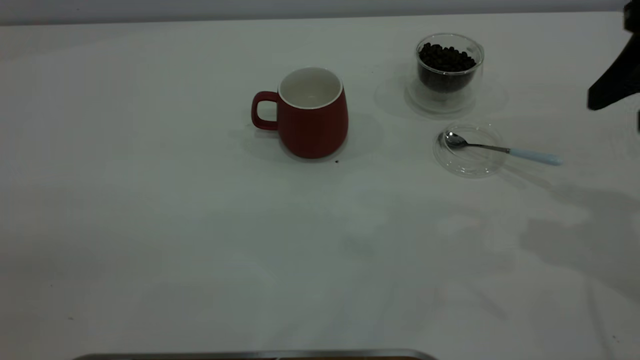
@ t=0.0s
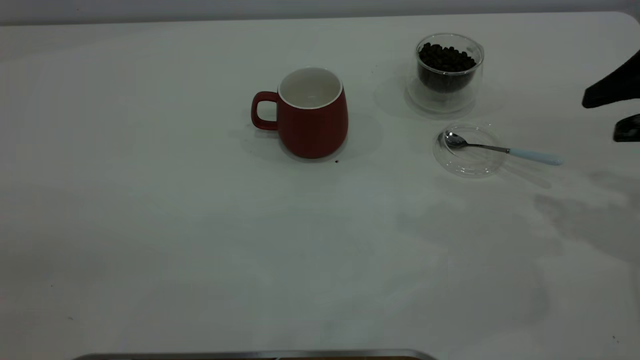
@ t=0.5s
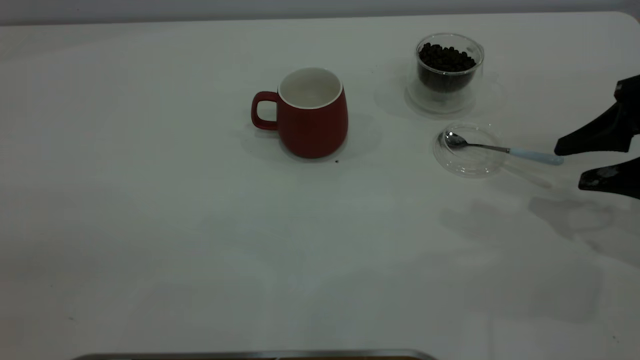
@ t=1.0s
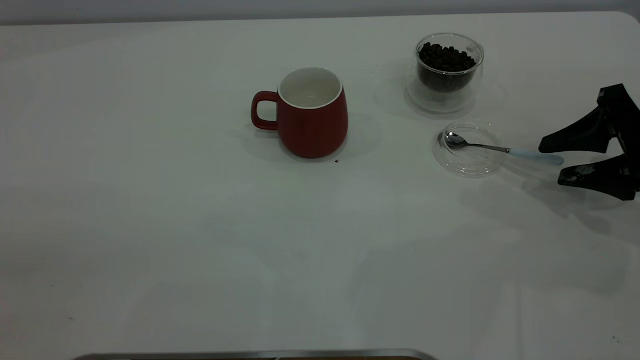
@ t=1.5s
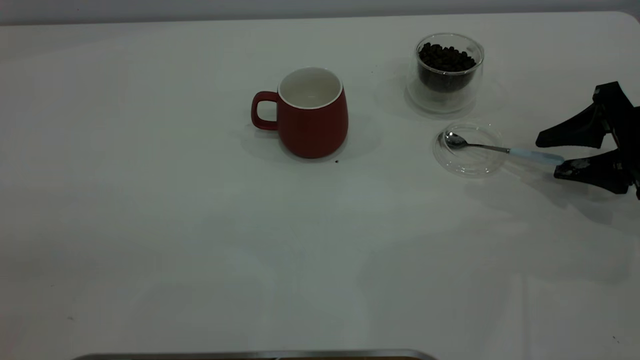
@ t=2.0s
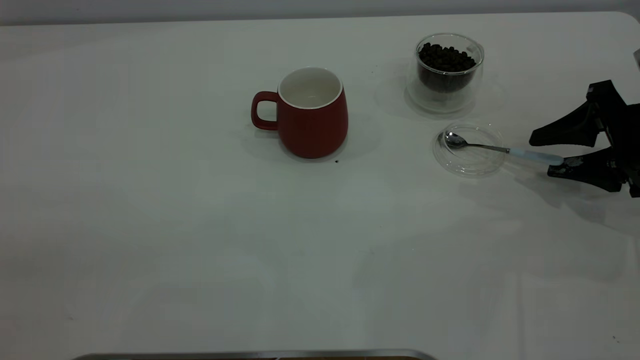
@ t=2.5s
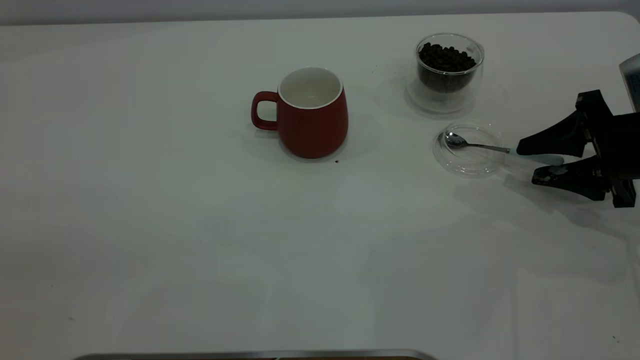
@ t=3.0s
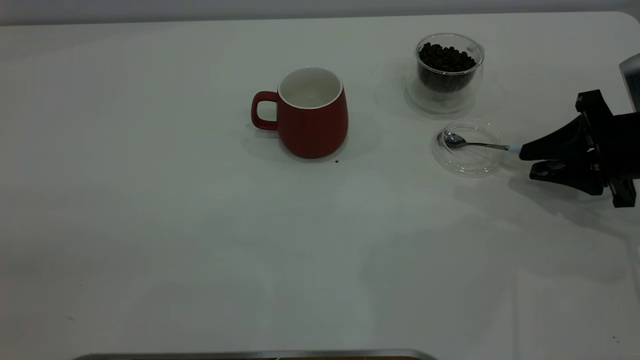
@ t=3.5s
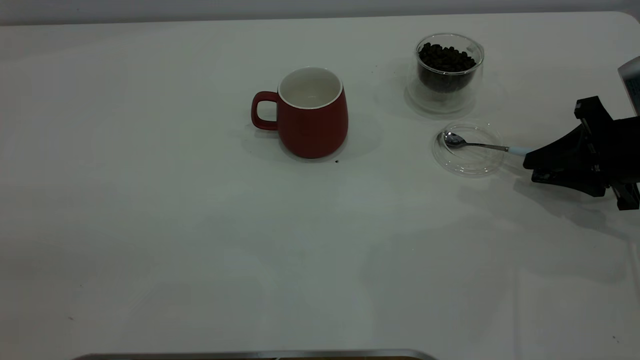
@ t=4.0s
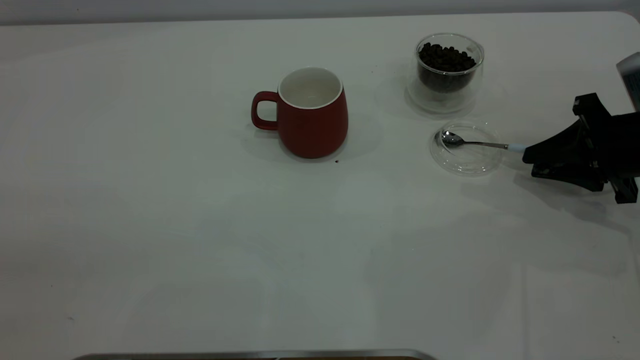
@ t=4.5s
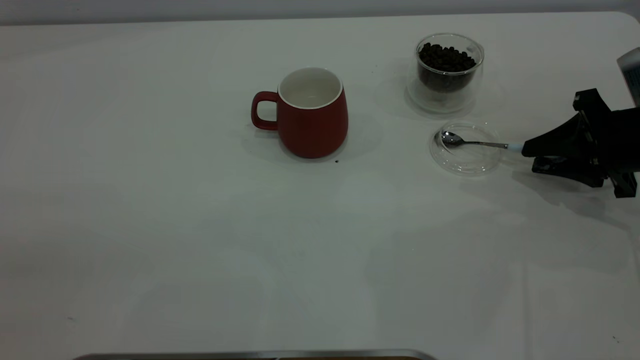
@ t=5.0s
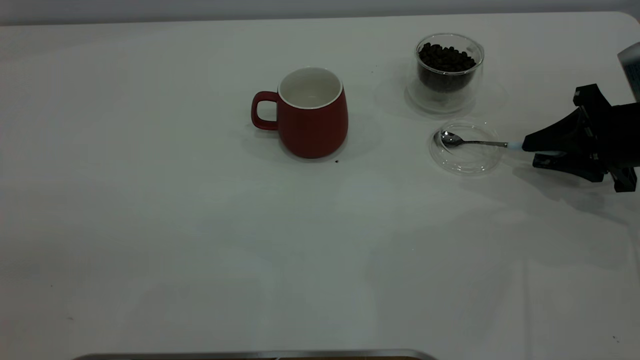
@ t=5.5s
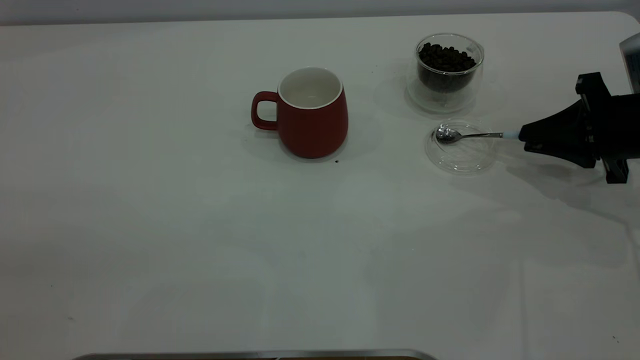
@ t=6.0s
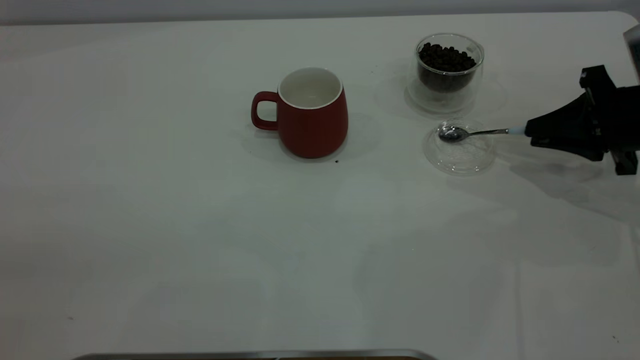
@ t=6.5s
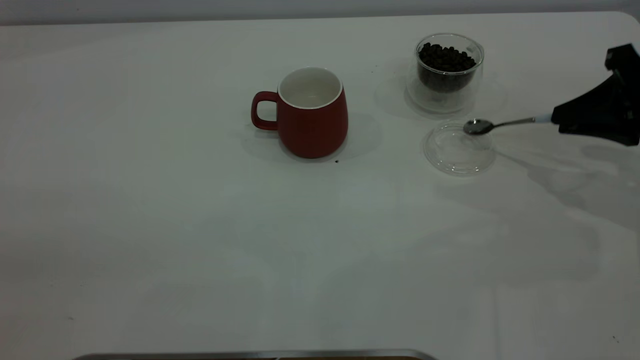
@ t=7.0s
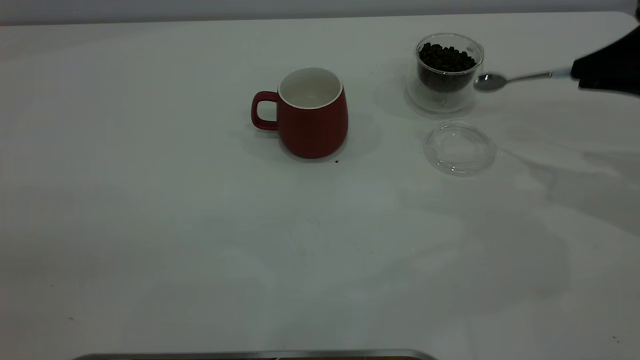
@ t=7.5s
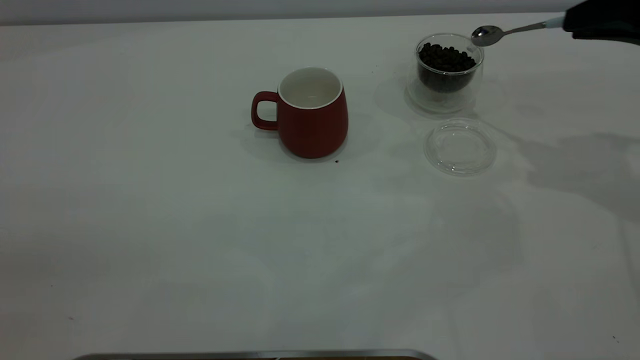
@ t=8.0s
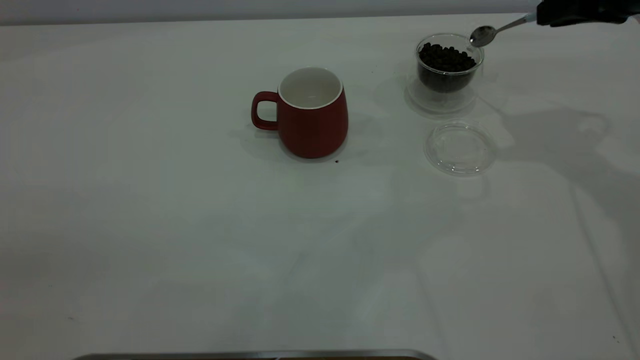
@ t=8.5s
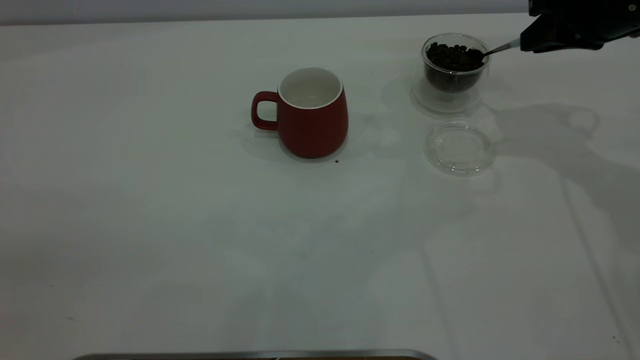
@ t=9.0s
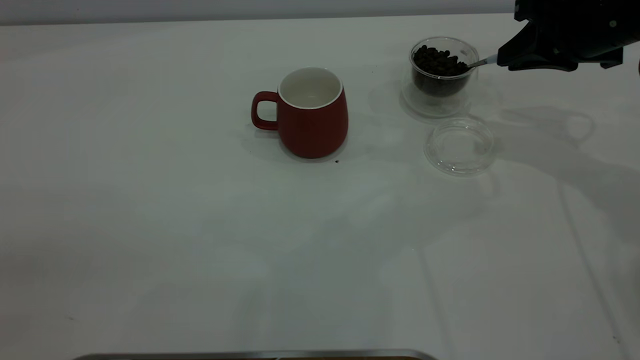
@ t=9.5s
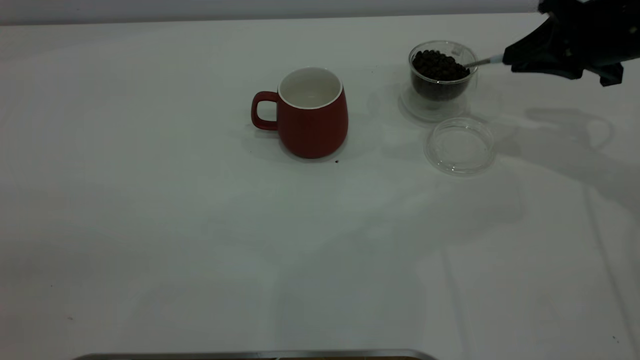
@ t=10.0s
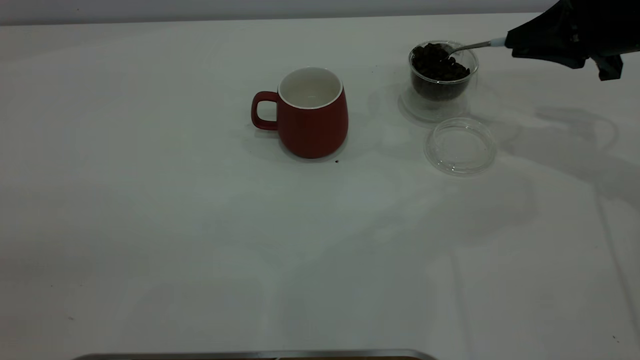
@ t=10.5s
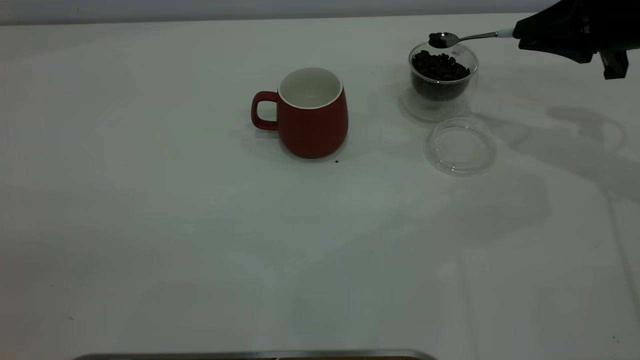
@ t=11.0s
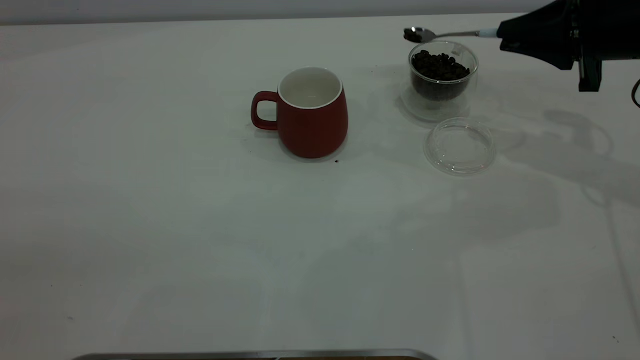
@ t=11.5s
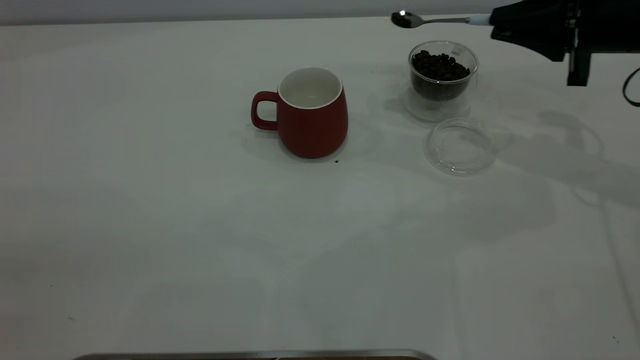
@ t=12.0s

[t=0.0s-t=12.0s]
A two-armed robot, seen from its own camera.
Task of the whole recording: the left gripper place the red cup in the center of the table, the right gripper take the blue spoon from the cup lid and scoop out the coffee beans from the coffee cup and put them into the red cup, the right gripper put the spoon back into the cup lid.
Step, t=0.0s to t=6.5s: Pick up the spoon.
t=0.0s to t=2.0s: The right gripper shifts about 15 cm downward.
t=2.0s to t=4.0s: The right gripper closes.
t=4.0s to t=6.0s: There are only small adjustments of the grippers.
t=6.0s to t=8.0s: The right gripper shifts some 15 cm upward.
t=8.0s to t=10.0s: The right gripper shifts some 5 cm downward.

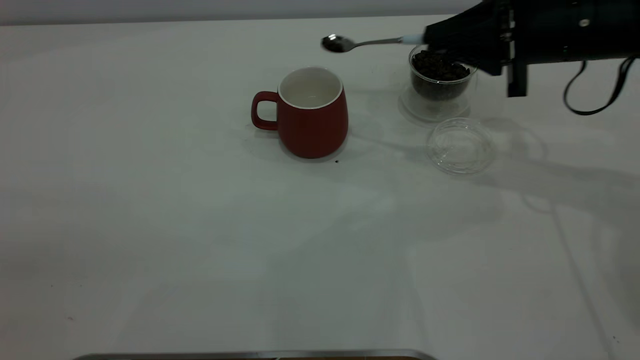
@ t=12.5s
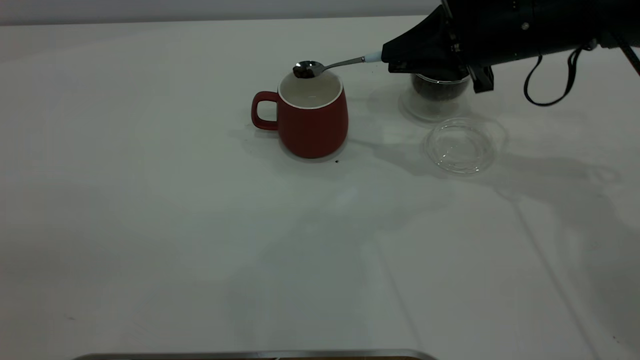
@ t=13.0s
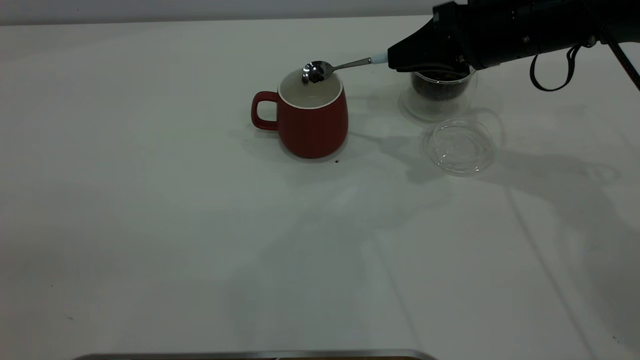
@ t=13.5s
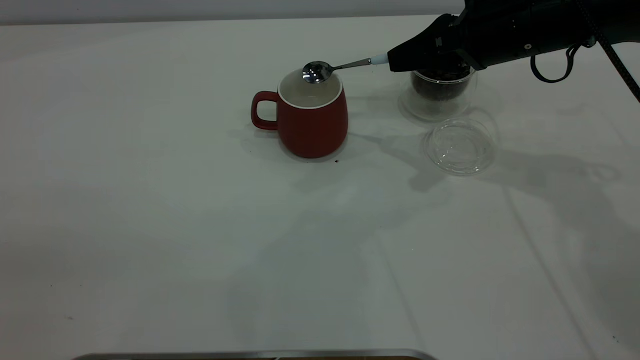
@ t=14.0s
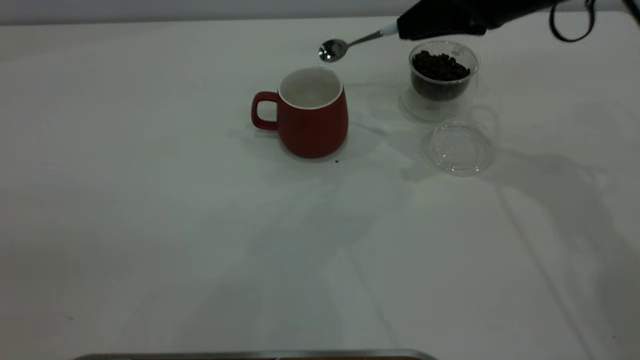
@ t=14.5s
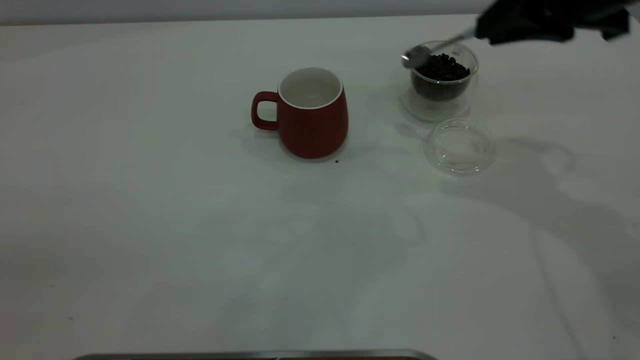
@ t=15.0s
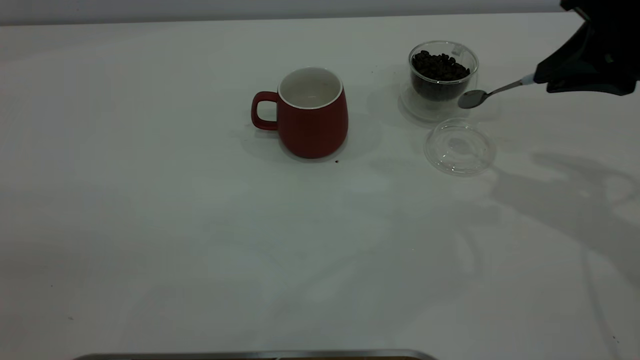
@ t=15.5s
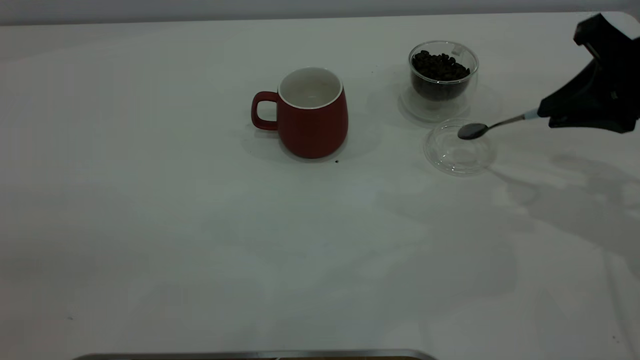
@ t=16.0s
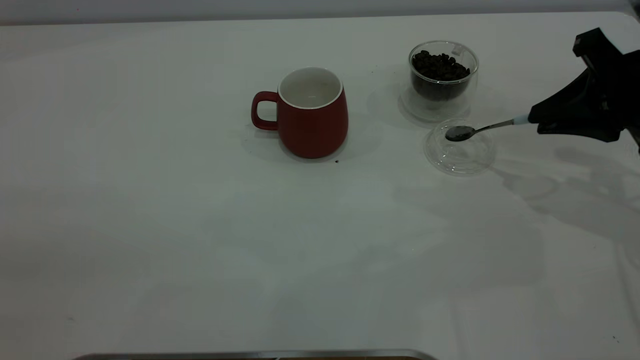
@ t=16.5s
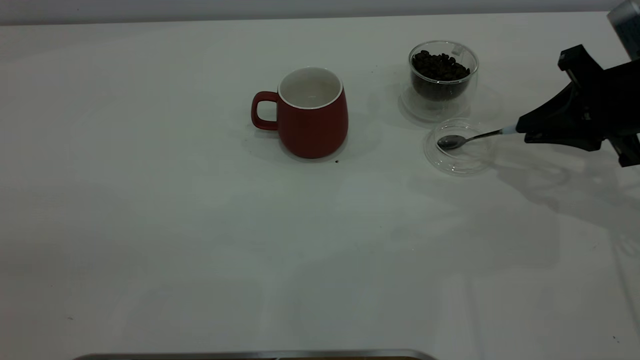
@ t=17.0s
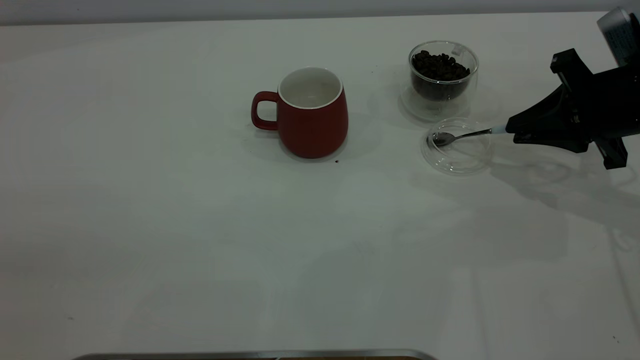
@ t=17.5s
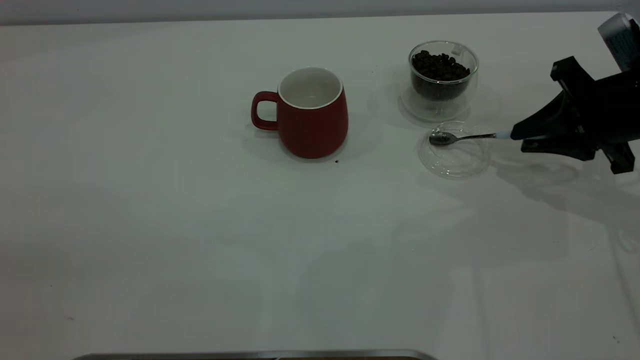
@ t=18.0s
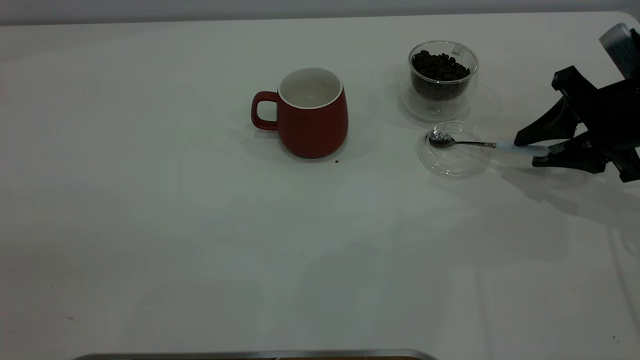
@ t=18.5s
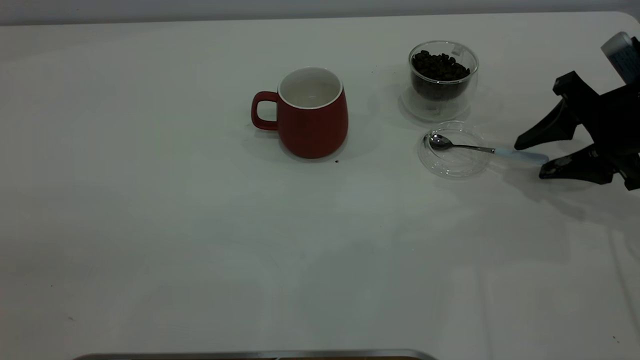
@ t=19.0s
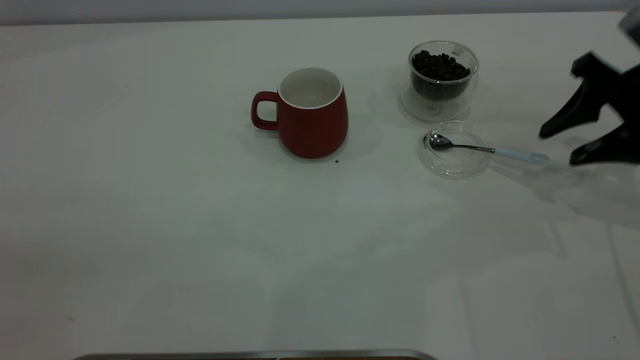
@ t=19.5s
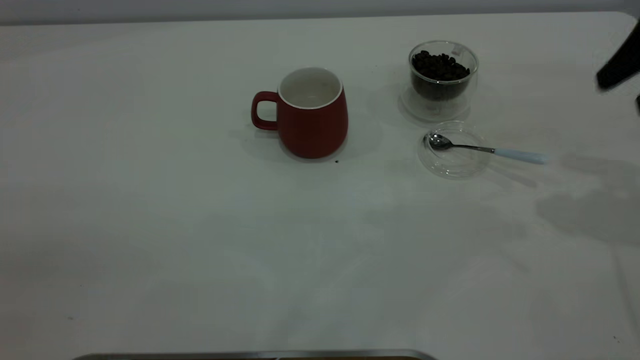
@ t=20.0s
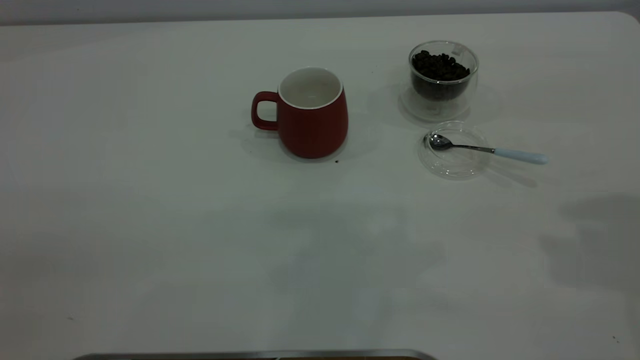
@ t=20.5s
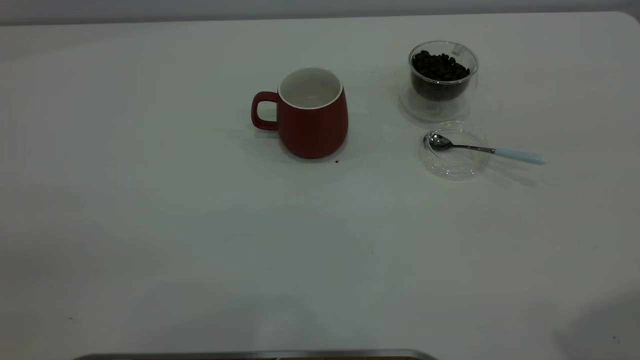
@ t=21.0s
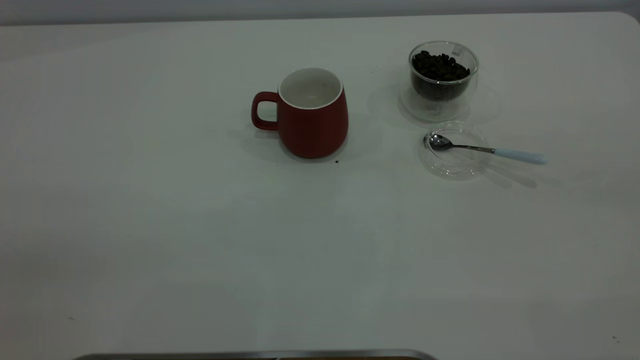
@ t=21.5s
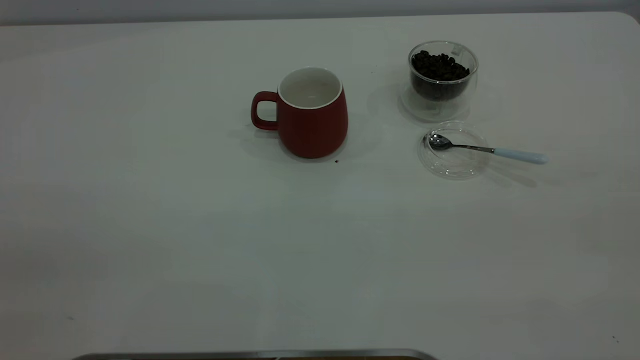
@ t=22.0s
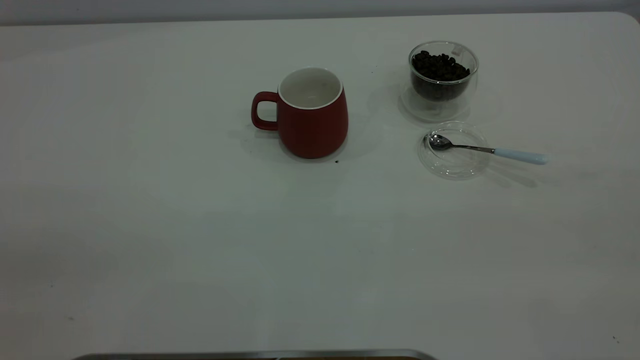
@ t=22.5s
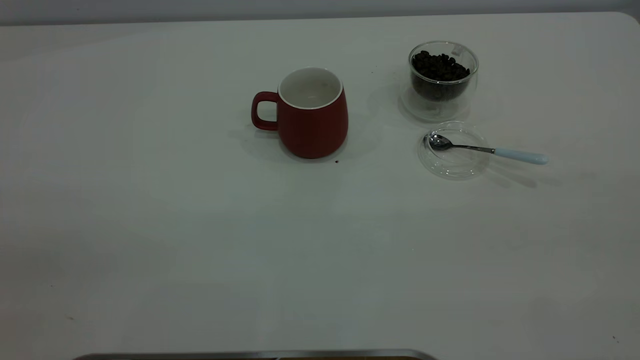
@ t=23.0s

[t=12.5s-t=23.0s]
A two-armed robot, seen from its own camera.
Task of the whole recording: the left gripper place the red cup in the center of the table, the right gripper take the blue spoon from the cup lid and scoop out the coffee beans from the coffee cup and put them into the red cup, the right gripper put the spoon back into the cup lid.
Step, t=14.5s to t=19.0s: Place the spoon back in its original place.
t=12.5s to t=14.5s: The right gripper moves upward, roughly 5 cm.
t=14.5s to t=16.5s: The right gripper goes approximately 15 cm to the right, backward and downward.
t=16.5s to t=19.0s: The right gripper moves approximately 5 cm, and opens.
t=19.0s to t=21.0s: The right gripper heads upward and backward, covering about 40 cm.
